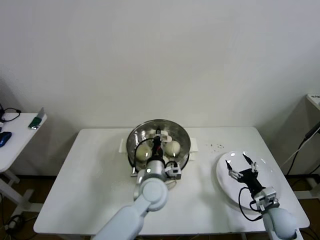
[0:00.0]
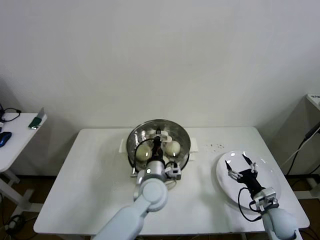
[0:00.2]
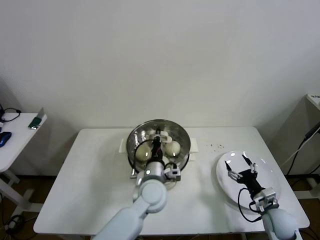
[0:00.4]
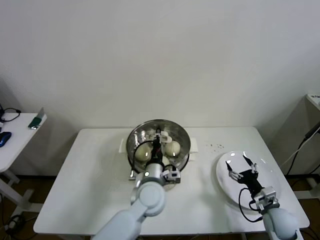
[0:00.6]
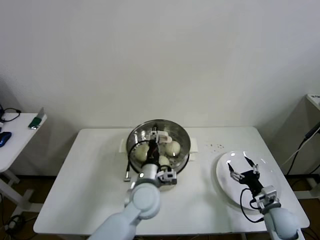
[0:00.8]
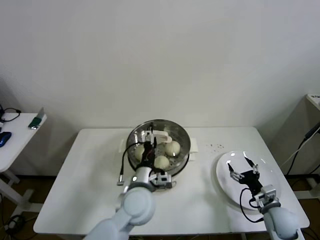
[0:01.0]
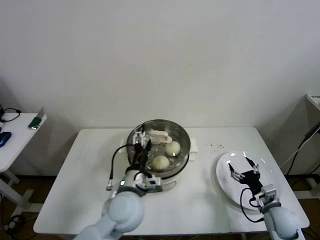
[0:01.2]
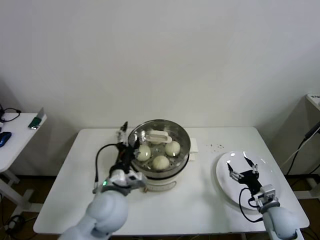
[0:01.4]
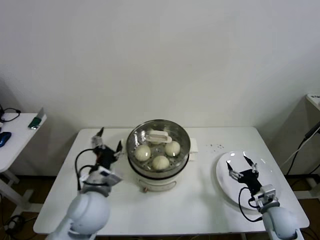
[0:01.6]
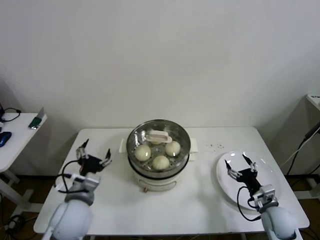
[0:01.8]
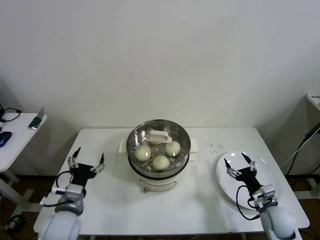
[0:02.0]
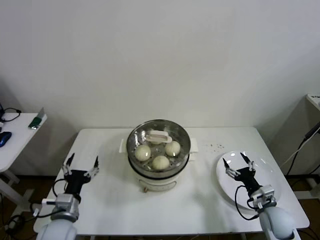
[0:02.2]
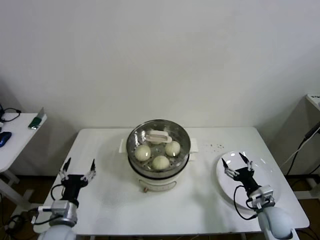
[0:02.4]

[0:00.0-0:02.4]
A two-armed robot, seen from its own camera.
0:00.0 to 0:01.2: The left gripper travels backward and to the left by approximately 10 cm, and opens its fingers.
0:01.2 to 0:02.4: The left gripper is displaced to the left by roughly 20 cm.
